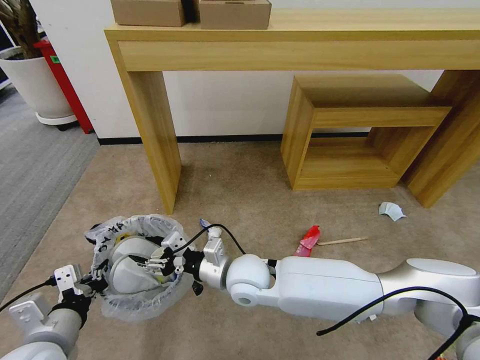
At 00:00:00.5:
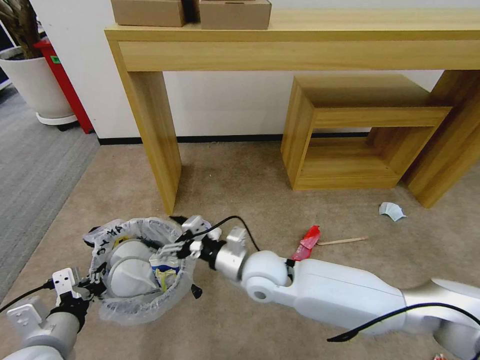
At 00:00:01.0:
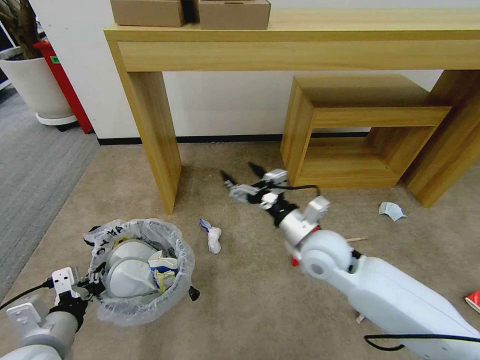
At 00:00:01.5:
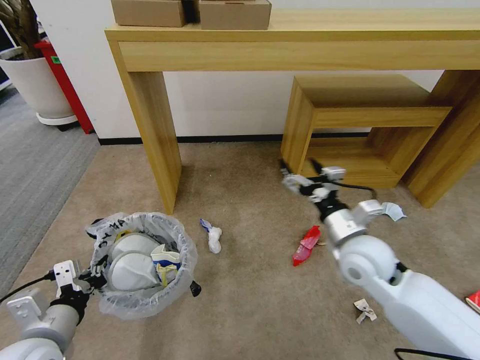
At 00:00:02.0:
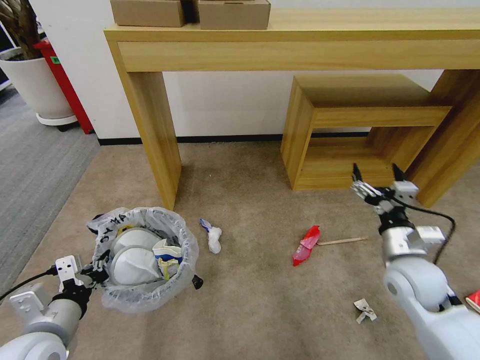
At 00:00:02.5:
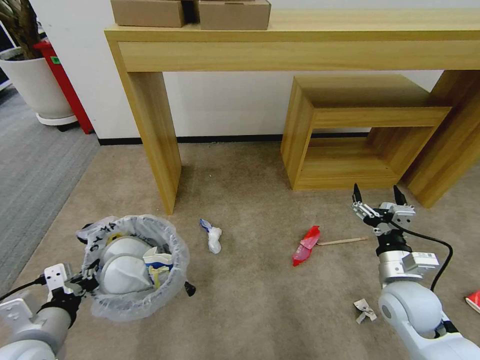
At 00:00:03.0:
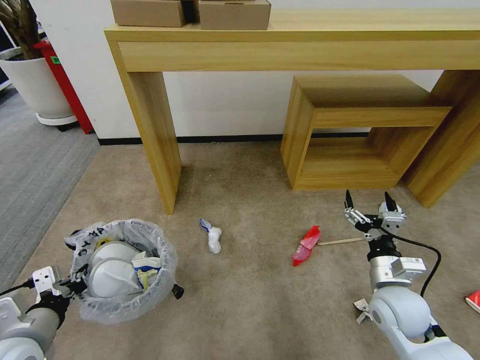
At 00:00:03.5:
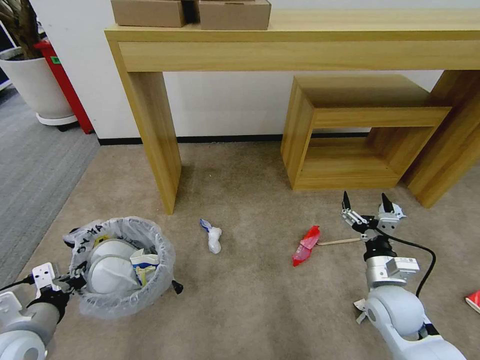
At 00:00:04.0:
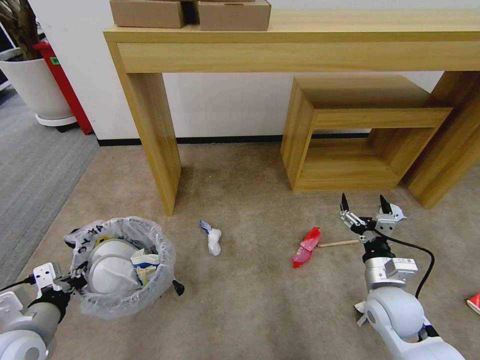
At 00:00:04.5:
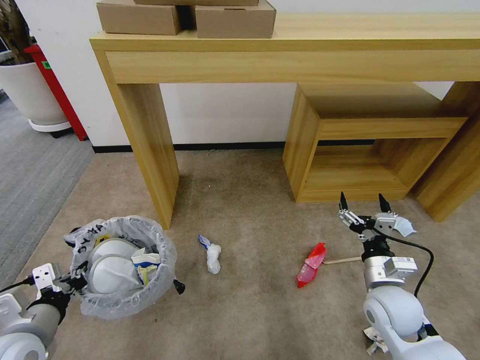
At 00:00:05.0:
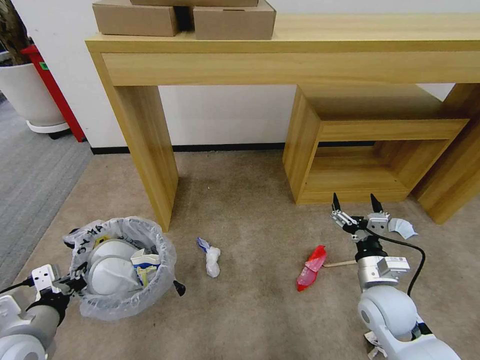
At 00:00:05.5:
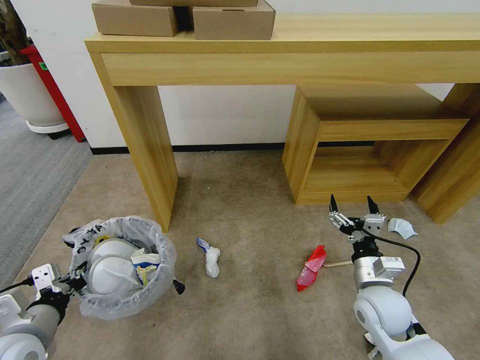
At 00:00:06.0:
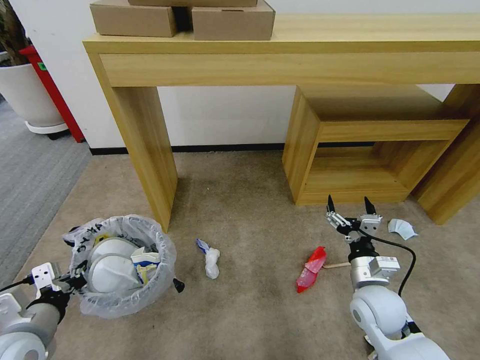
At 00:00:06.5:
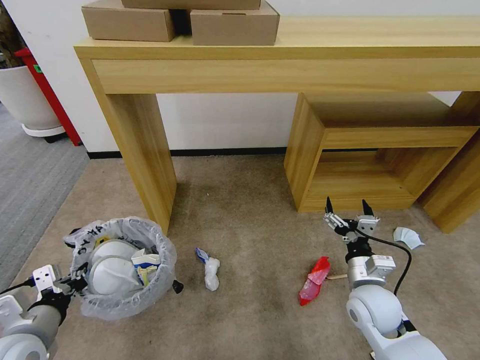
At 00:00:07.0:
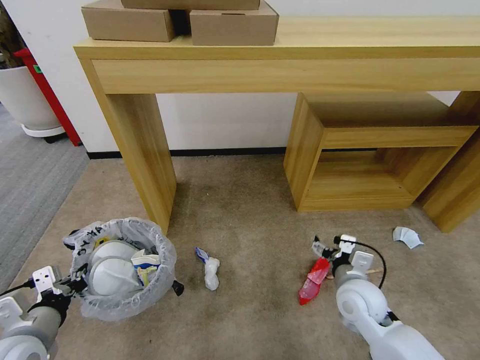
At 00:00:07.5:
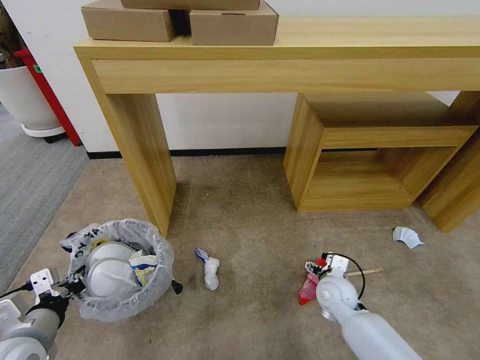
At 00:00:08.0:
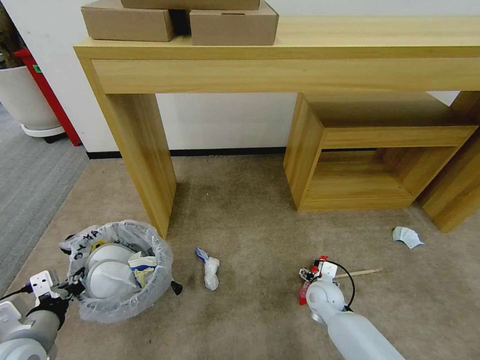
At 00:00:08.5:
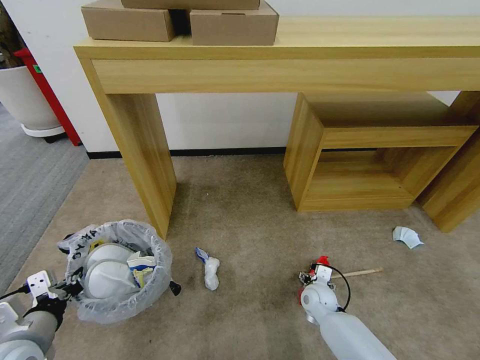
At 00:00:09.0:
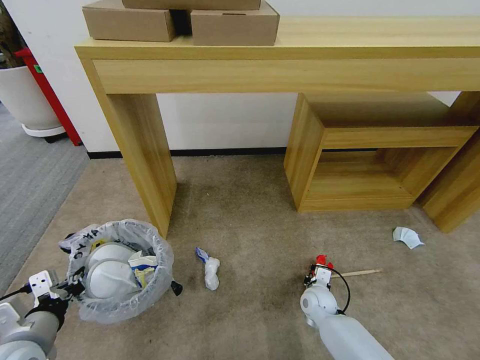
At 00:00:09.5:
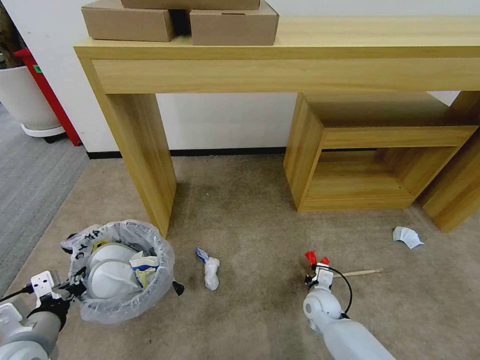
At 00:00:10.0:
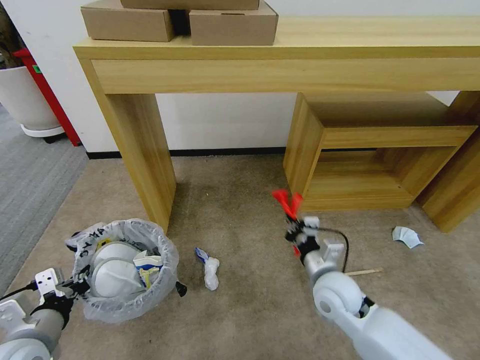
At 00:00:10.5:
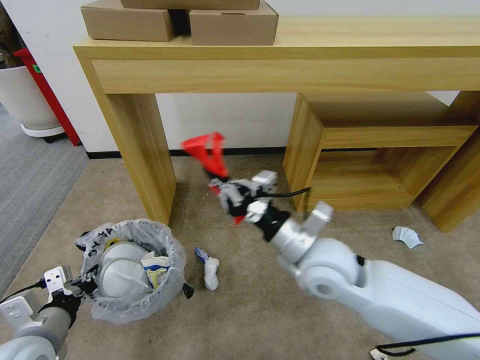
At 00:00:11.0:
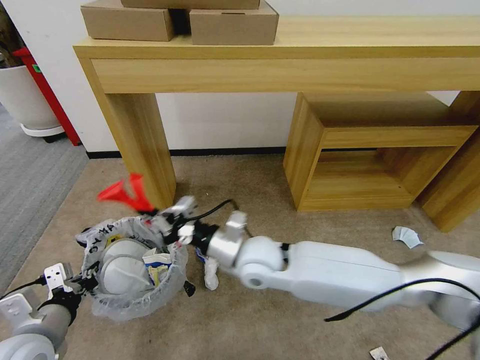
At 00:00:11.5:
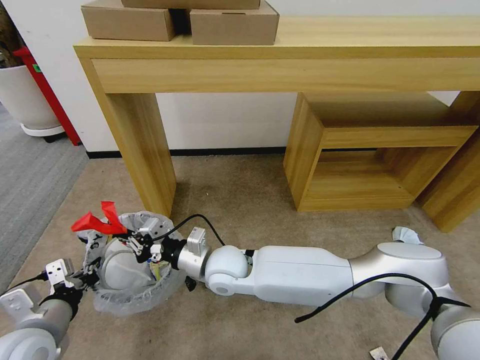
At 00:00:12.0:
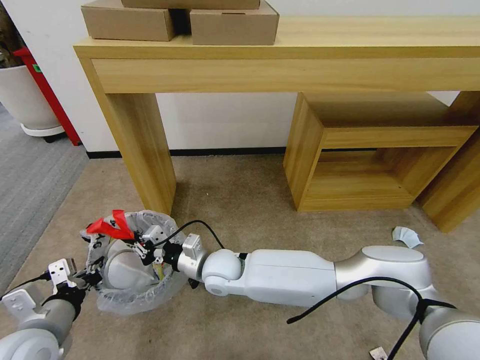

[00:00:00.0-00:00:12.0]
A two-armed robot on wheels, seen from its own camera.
Task of the whole recording: Pick up the trash bin and place the garbage on the floor into it.
00:00:00.0 to 00:00:02.0: The right gripper is displaced to the right by roughly 35 cm, and opens its fingers.
00:00:02.0 to 00:00:04.0: The right gripper shifts about 5 cm downward.
00:00:06.0 to 00:00:08.0: The right gripper is displaced downward and forward by some 15 cm.
00:00:08.0 to 00:00:10.0: The right gripper shifts about 15 cm upward, and closes.
00:00:10.0 to 00:00:12.0: The right gripper shifts about 25 cm to the left.

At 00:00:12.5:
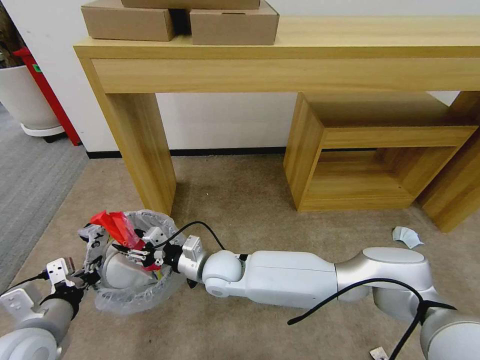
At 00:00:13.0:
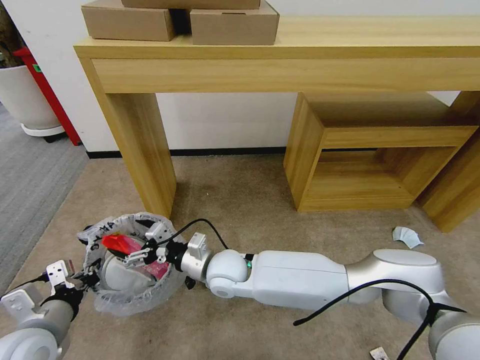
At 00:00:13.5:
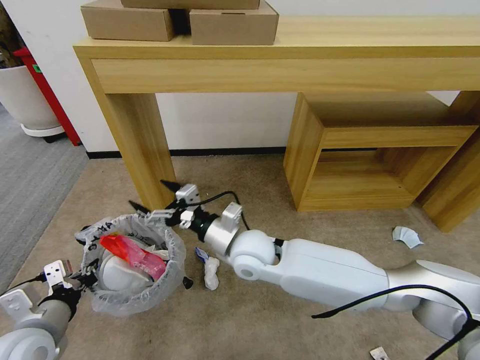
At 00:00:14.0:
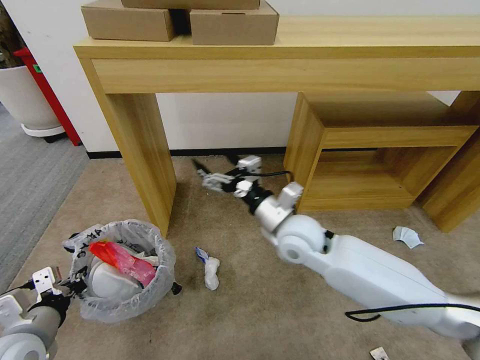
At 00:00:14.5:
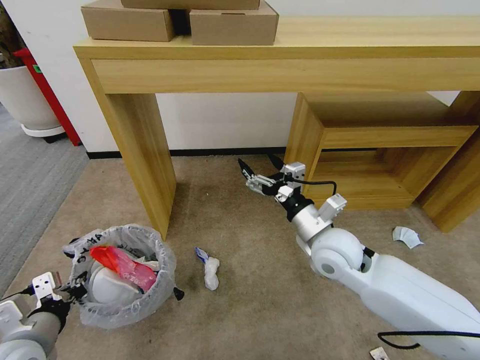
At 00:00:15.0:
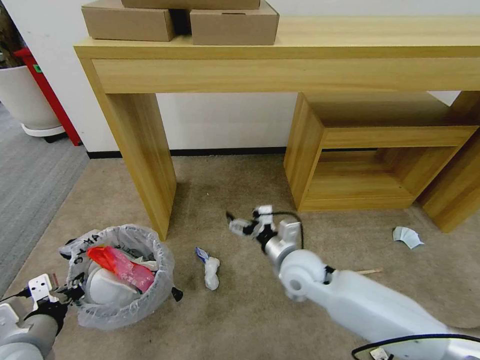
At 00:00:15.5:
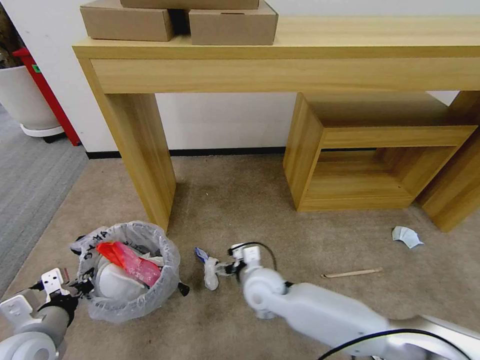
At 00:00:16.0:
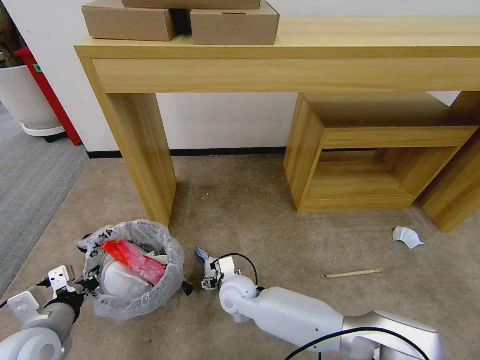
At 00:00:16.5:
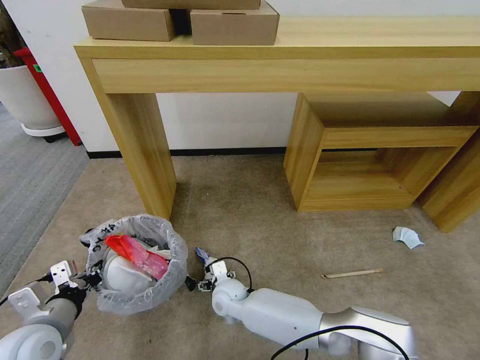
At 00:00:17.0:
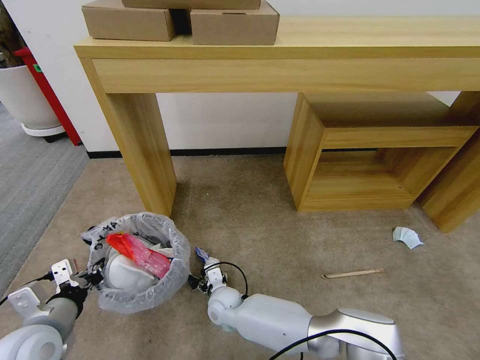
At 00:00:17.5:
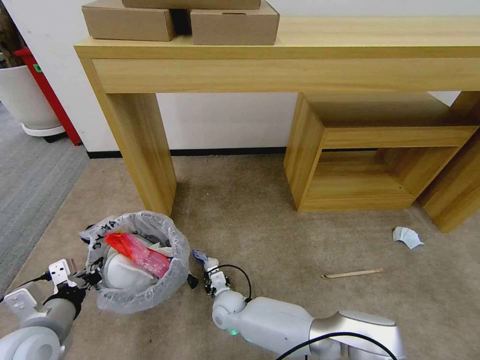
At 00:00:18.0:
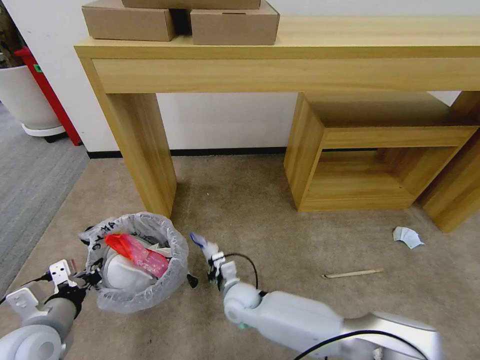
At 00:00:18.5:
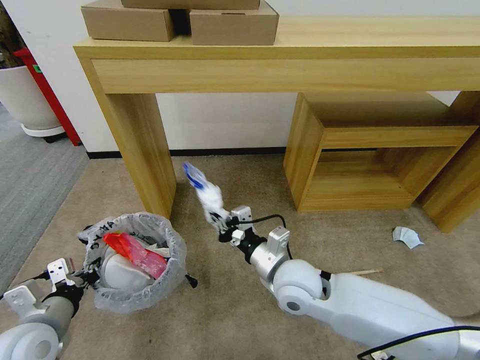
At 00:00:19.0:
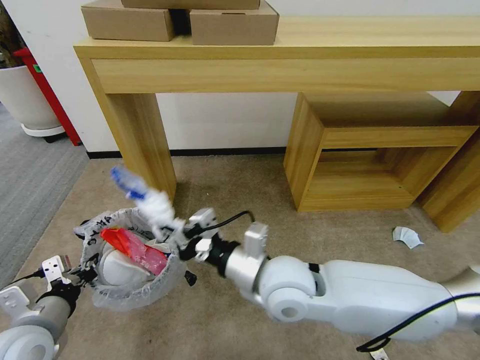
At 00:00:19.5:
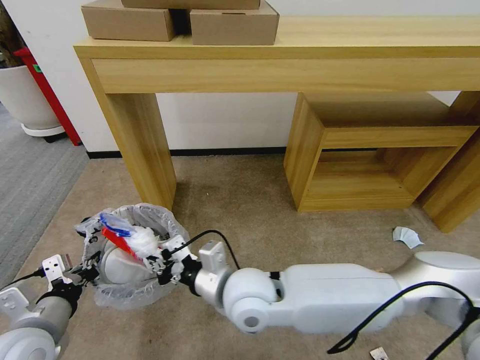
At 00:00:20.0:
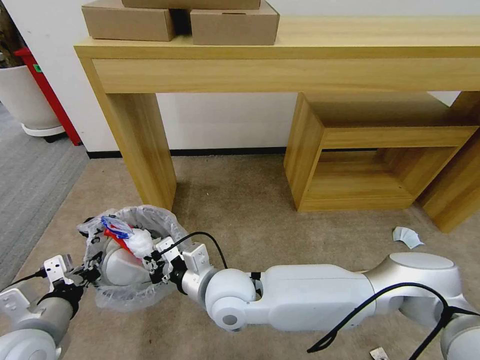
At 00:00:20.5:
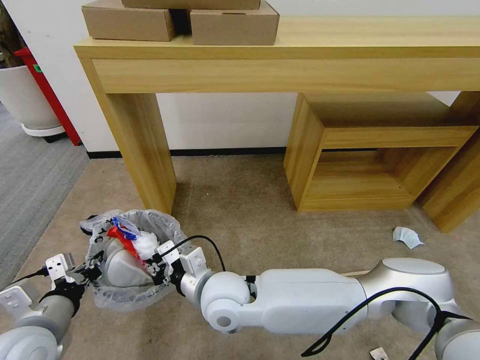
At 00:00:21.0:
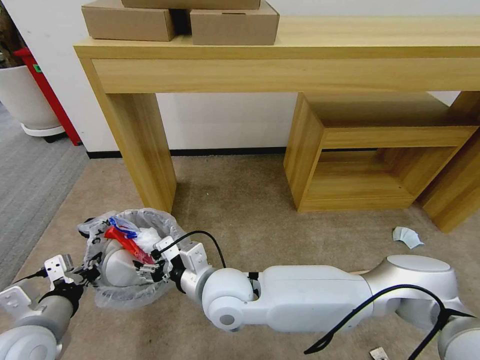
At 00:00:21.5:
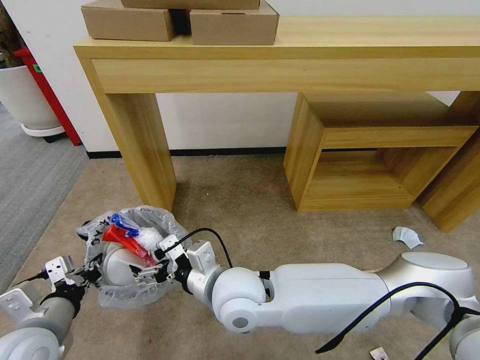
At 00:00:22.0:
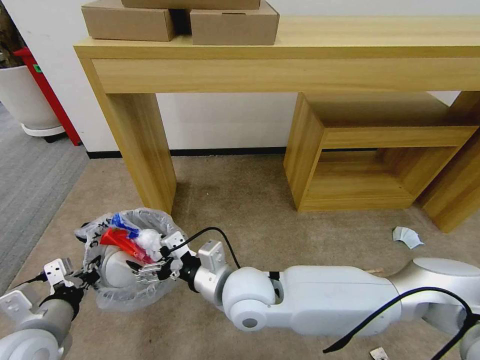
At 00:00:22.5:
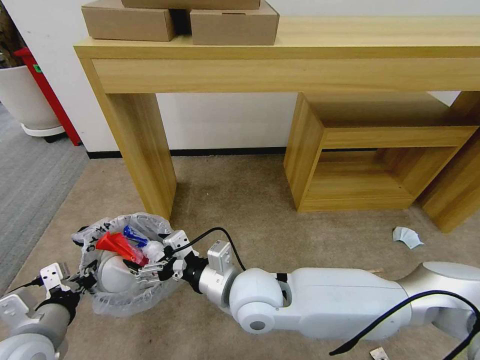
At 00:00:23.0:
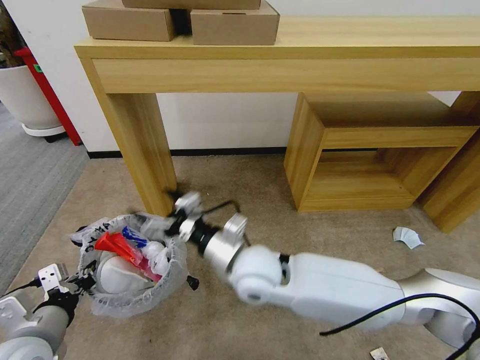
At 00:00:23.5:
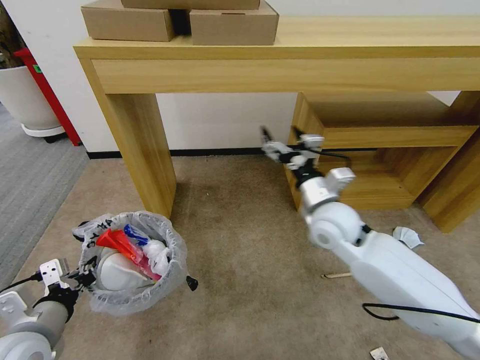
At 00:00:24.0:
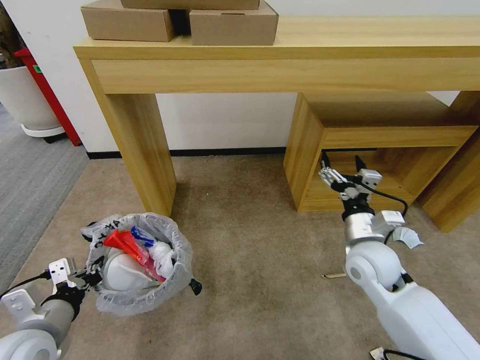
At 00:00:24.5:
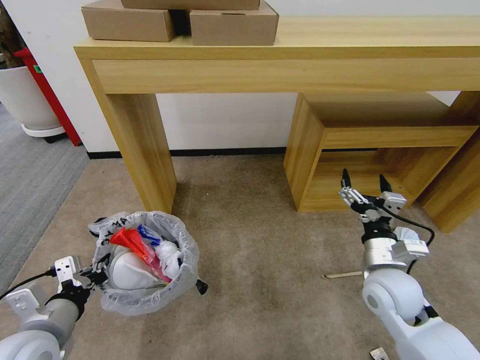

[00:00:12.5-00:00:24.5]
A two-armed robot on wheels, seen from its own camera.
Task of the whole recording: Pick up the trash bin and place the garbage on the floor into it.
00:00:12.5 to 00:00:14.5: The right gripper goes some 25 cm to the right and upward, and opens up.
00:00:14.5 to 00:00:16.5: The right gripper travels downward and to the left by roughly 30 cm.
00:00:16.5 to 00:00:18.5: The right gripper heads upward and to the right, covering some 25 cm, and closes up.
00:00:18.5 to 00:00:20.5: The right gripper shifts roughly 15 cm to the left.
00:00:20.5 to 00:00:22.5: The right gripper goes about 5 cm to the right, and opens.
00:00:22.5 to 00:00:24.5: The right gripper is displaced to the right by approximately 25 cm.

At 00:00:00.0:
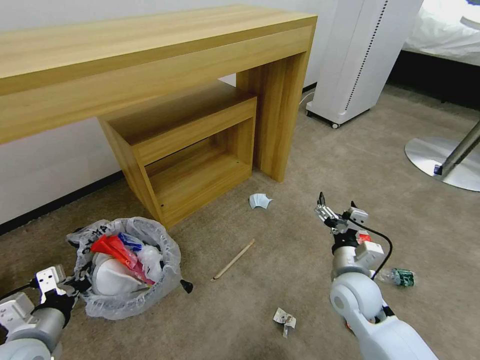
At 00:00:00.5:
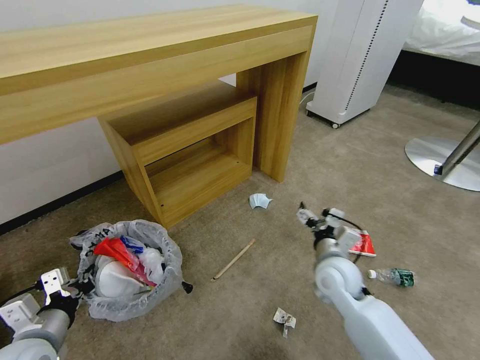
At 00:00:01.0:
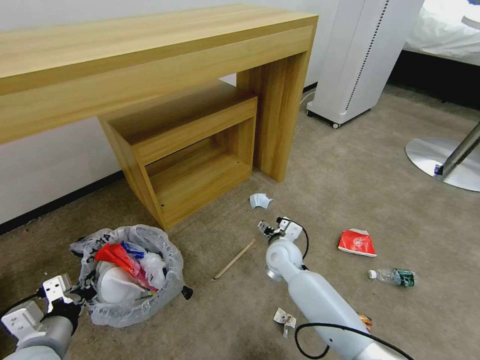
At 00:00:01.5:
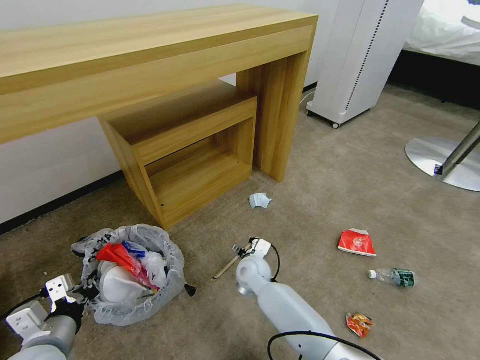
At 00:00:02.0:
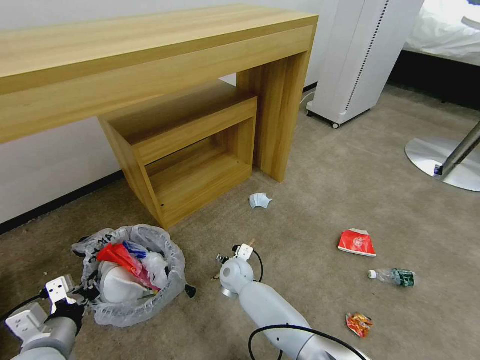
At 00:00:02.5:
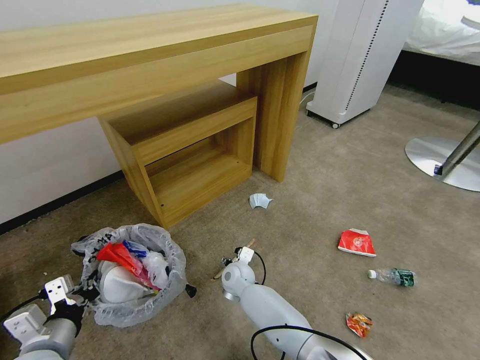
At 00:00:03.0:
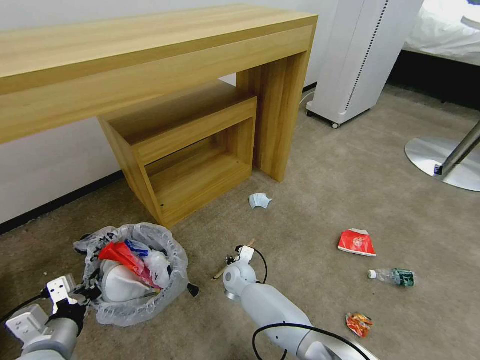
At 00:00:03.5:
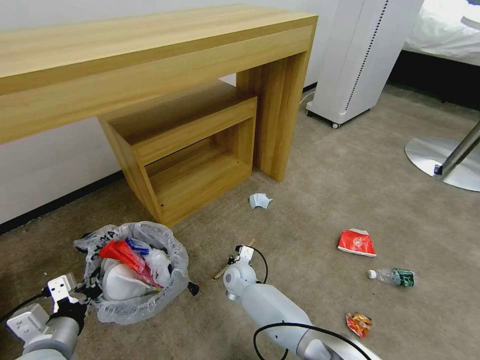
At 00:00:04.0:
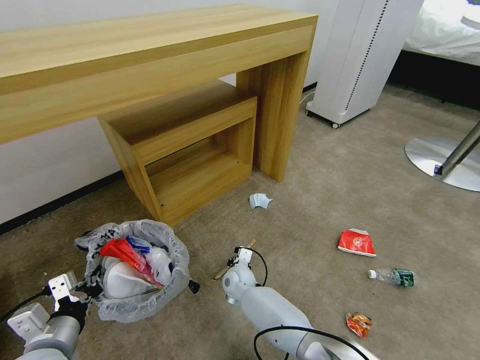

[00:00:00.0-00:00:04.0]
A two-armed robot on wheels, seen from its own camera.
Task of the whole recording: Pick up the trash bin and place the garbage on the floor into it.
00:00:00.0 to 00:00:02.0: The right gripper goes about 30 cm to the left, downward and forward.
00:00:02.0 to 00:00:04.0: The right gripper closes.